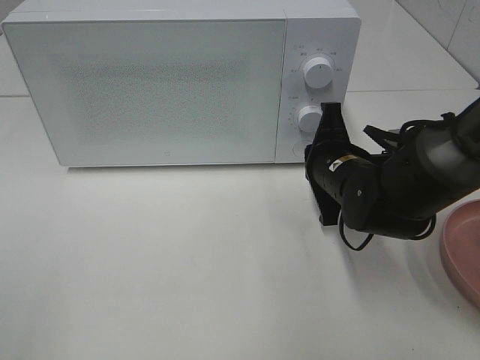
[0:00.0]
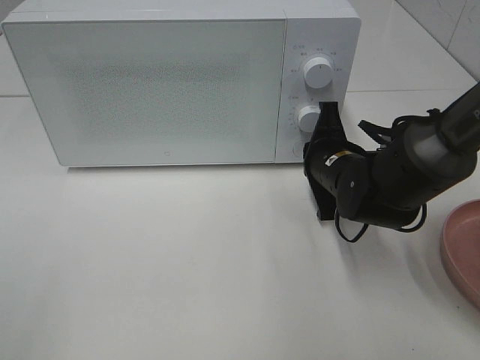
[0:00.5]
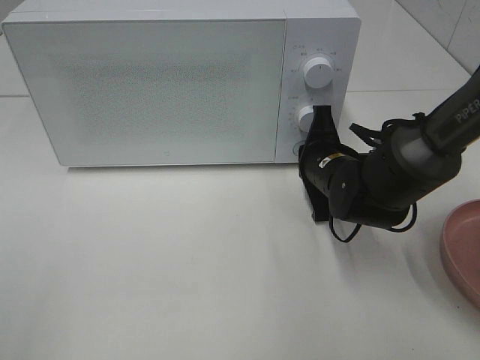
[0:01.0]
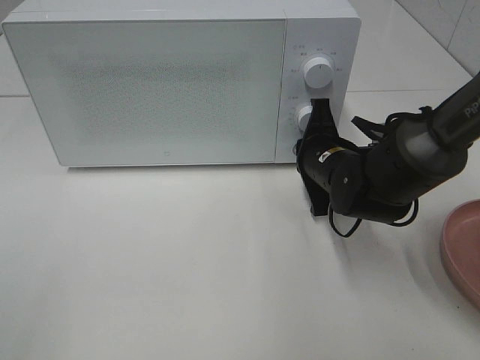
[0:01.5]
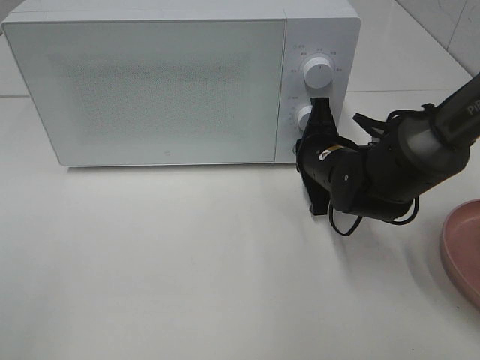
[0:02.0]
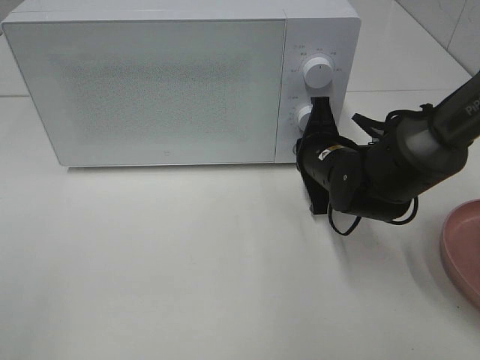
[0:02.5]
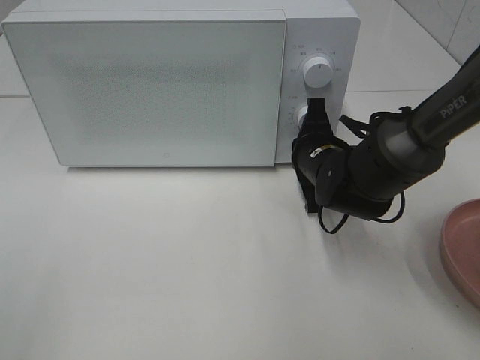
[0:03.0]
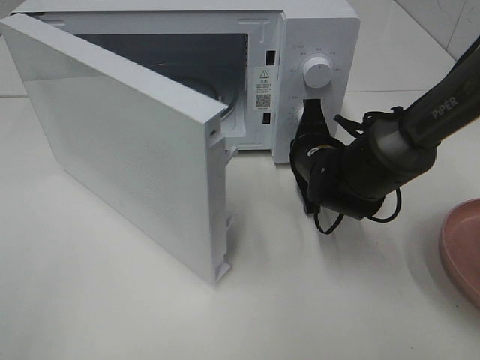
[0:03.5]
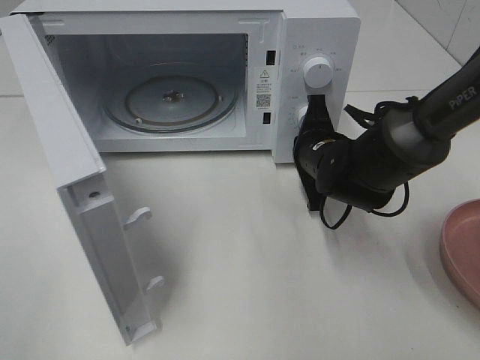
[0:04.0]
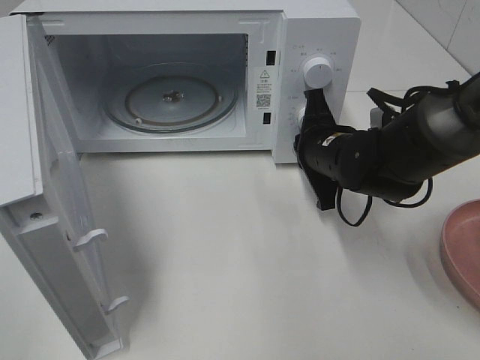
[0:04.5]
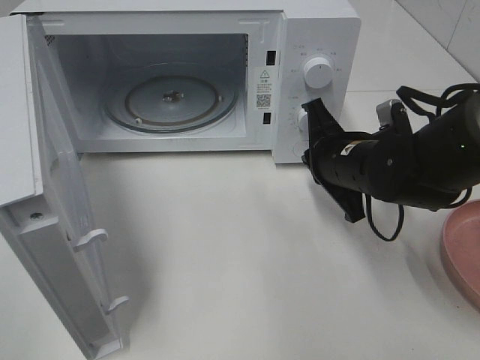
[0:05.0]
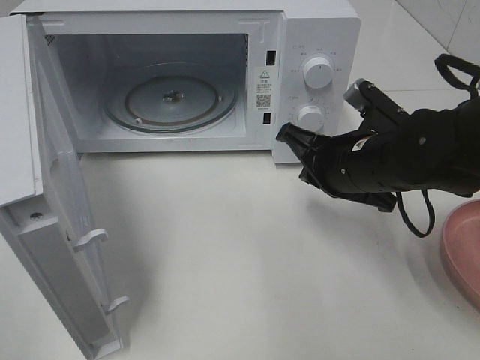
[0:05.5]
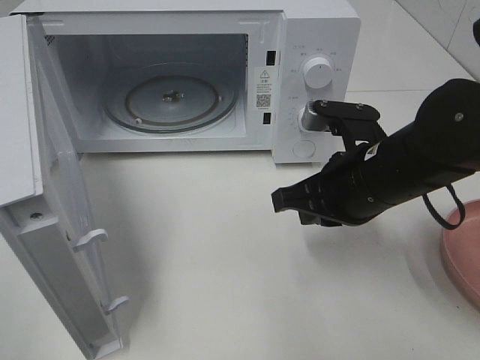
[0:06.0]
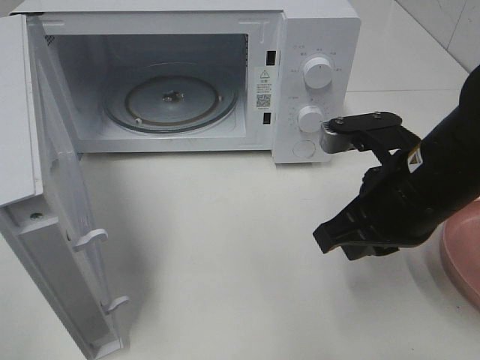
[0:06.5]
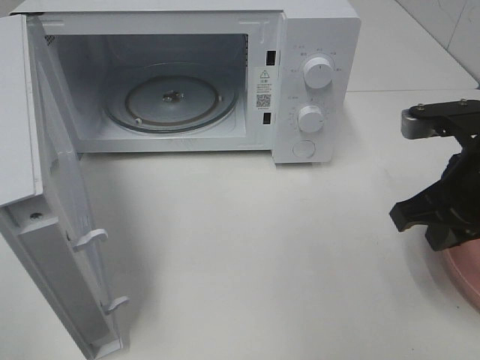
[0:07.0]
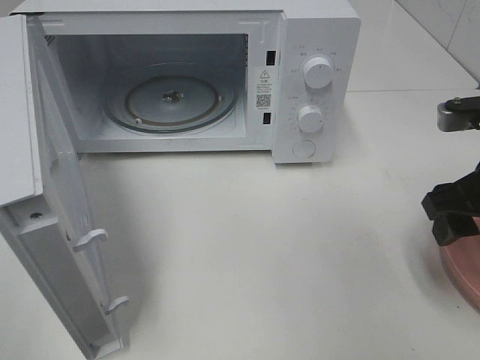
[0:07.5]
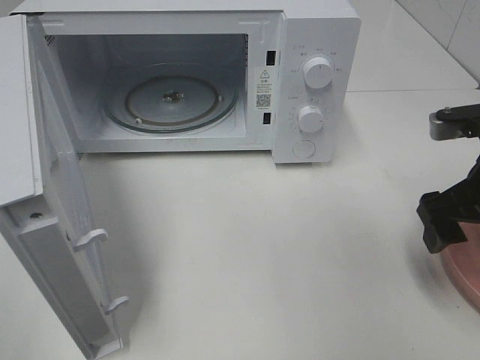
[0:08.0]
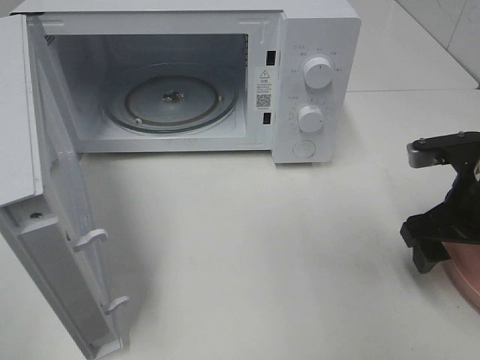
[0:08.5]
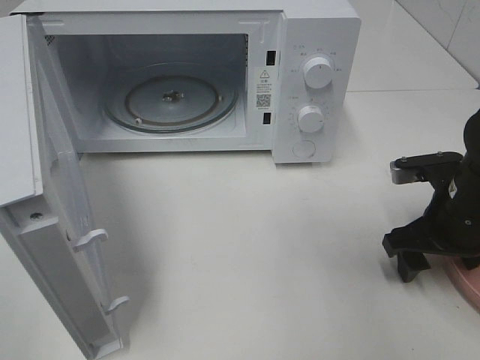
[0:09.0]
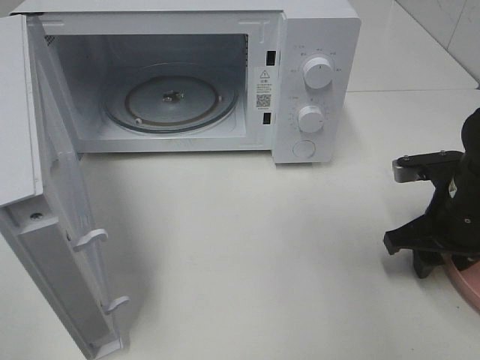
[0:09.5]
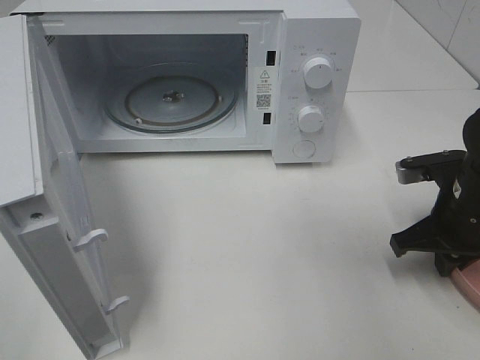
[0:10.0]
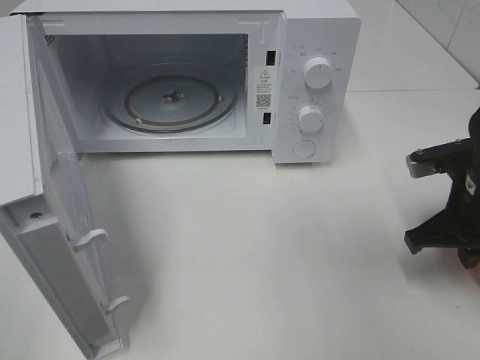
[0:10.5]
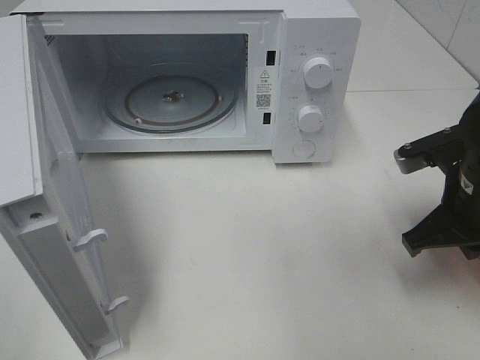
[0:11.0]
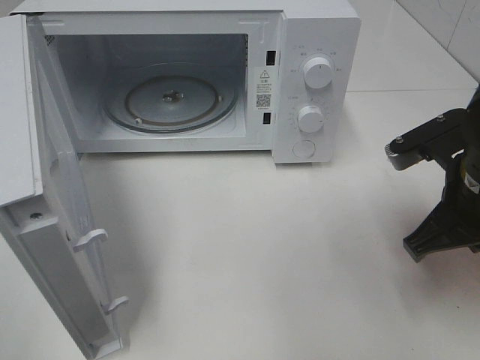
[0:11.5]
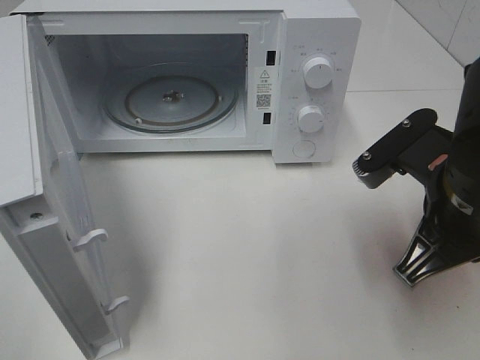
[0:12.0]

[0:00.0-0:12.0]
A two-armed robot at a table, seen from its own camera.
Task of the whole recording: Heat the burger.
Step, 0.0 to 4.5 s: Right hand: press the switch.
Step, 5.0 to 10.0 s: Right hand: grab the plate with the hamburger.
0.0 to 2.0 s: The grippers move only a little.
4.0 to 6.0 s: The right gripper goes about 10 cm backward and upward.
6.0 to 8.0 s: The right gripper moves to the right, about 10 cm, and opens.
8.0 to 10.0 s: The right gripper is displaced downward by roughly 10 cm, and closes up.
10.0 to 12.0 s: The right gripper travels upward, to the left and backward by some 15 cm.

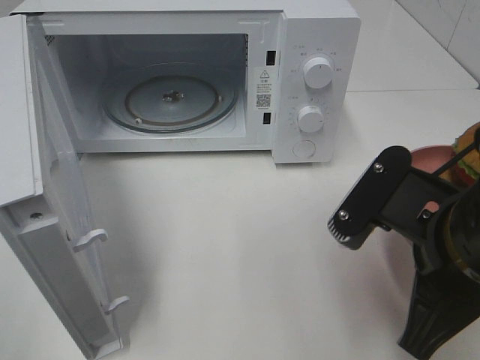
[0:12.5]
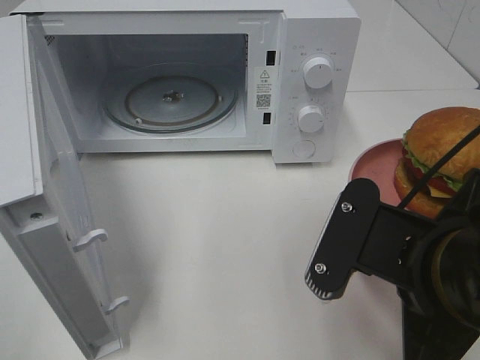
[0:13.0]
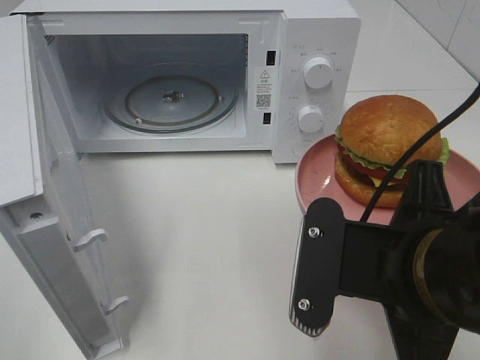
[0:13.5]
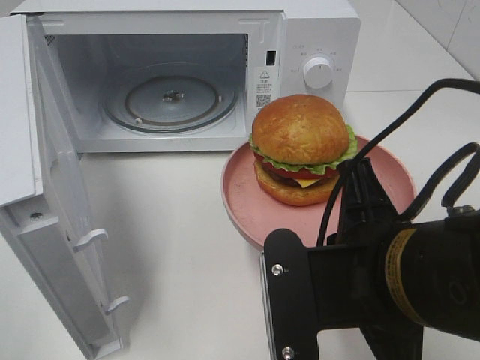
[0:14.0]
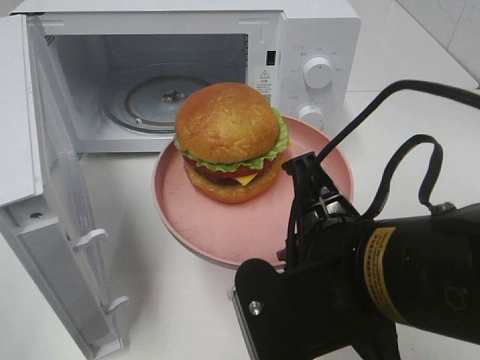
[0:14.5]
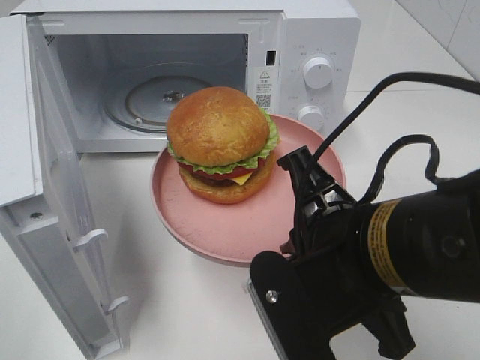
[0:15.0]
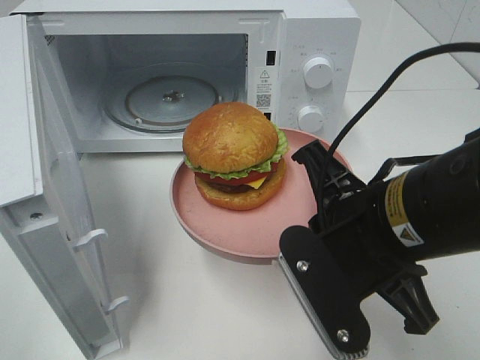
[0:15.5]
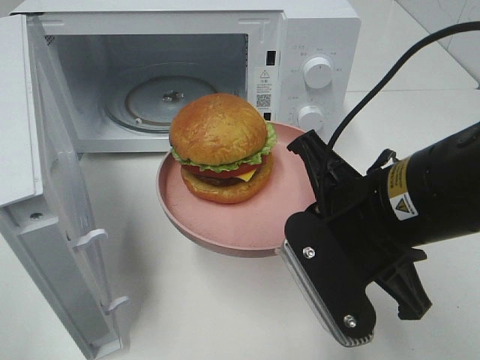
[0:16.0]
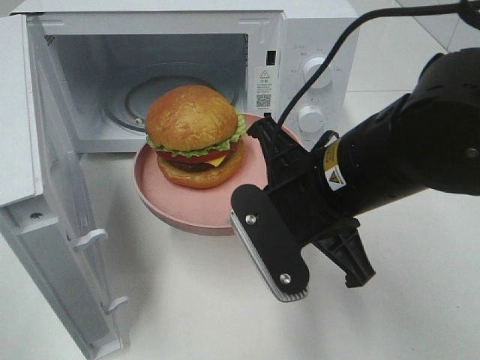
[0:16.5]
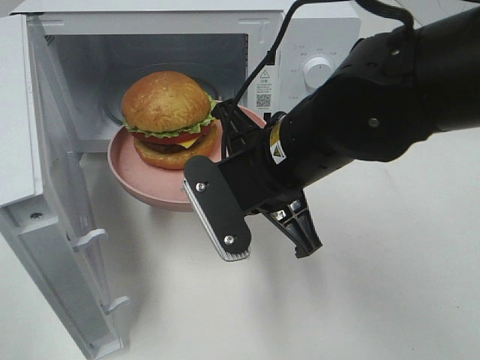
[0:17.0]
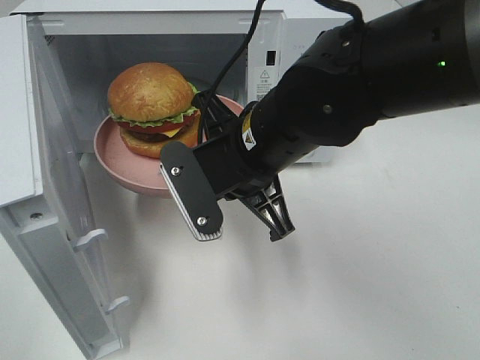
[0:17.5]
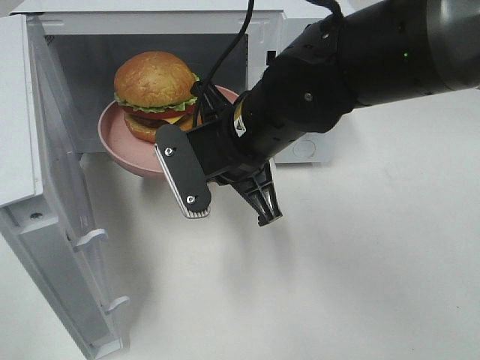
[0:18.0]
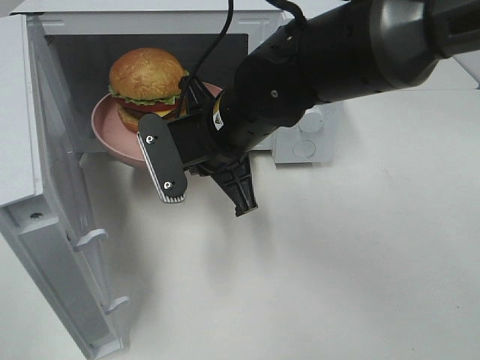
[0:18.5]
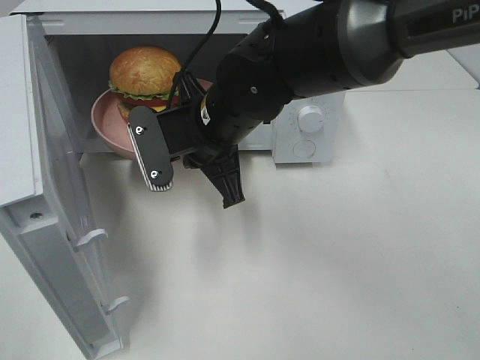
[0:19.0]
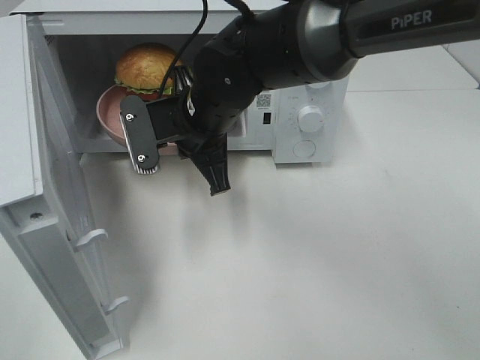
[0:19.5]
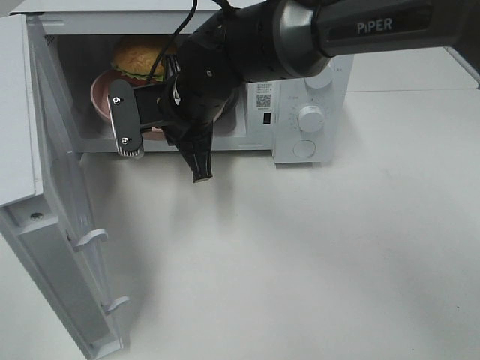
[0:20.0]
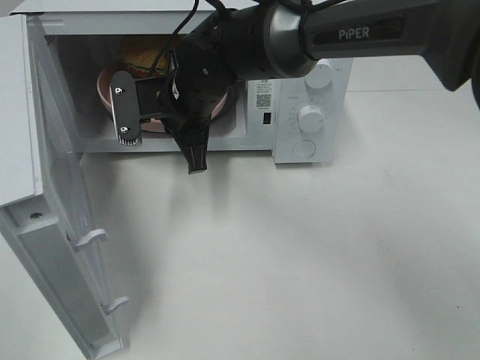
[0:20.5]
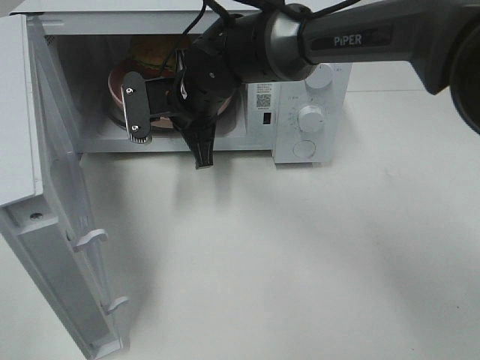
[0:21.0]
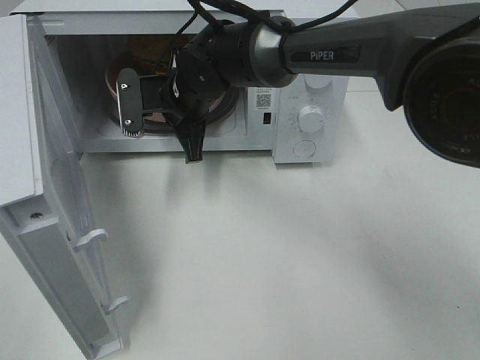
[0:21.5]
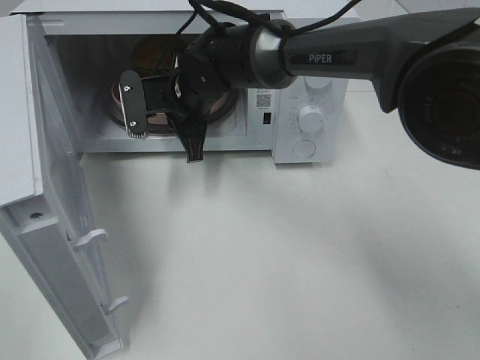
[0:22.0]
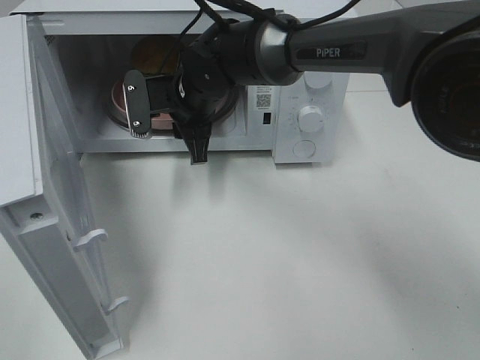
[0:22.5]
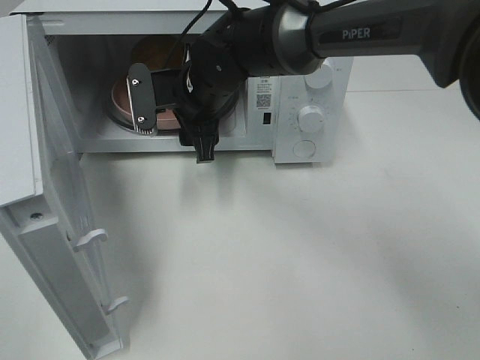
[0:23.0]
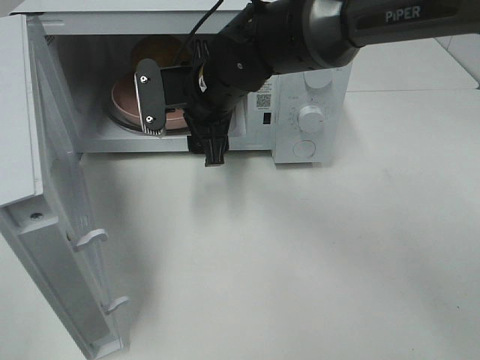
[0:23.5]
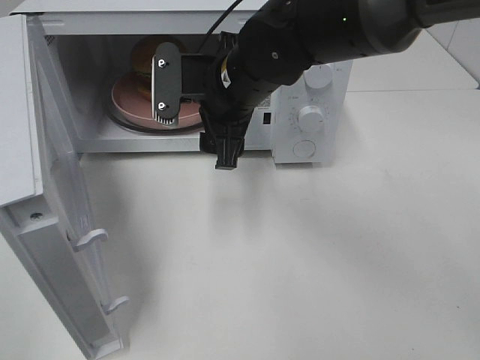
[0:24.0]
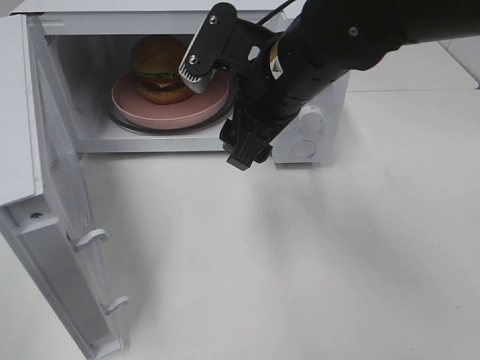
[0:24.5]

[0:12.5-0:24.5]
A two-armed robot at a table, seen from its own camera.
Task of the whole recording: Heat the burger.
Step, 12.5 to 22.0 s: Right hand: place the plate in the microwave.
12.5 to 14.5 s: The right gripper goes approximately 5 cm to the left.
14.5 to 16.5 s: The right gripper goes some 10 cm forward.
16.5 to 18.5 s: The right gripper travels forward and to the left by approximately 10 cm.
18.5 to 20.5 s: The right gripper shifts some 10 cm forward.
20.5 to 22.5 s: The right gripper opens its fingers.
22.5 to 24.5 s: The right gripper goes some 15 cm backward, to the right and upward, and opens up.

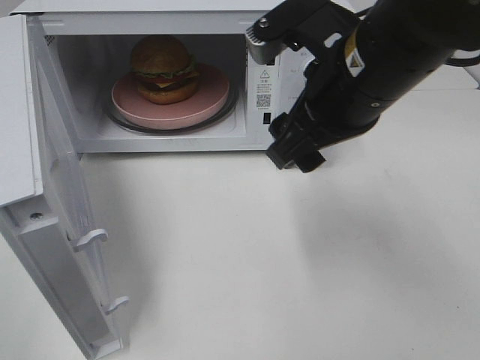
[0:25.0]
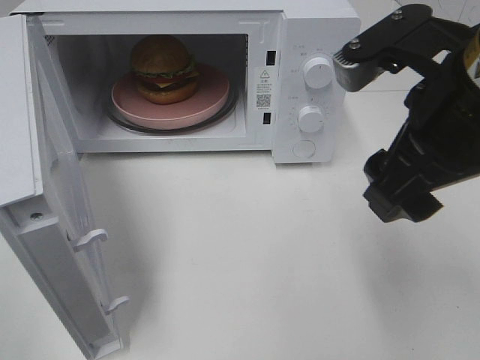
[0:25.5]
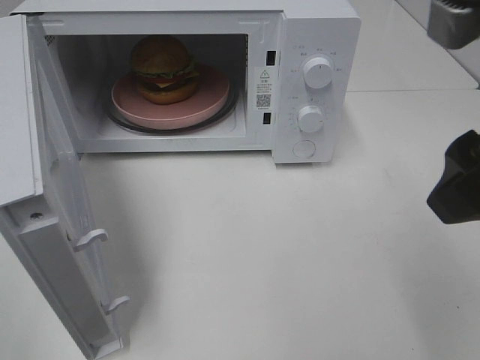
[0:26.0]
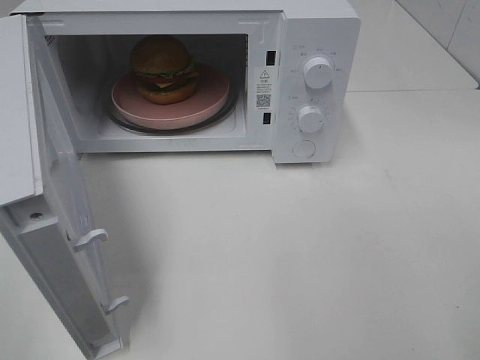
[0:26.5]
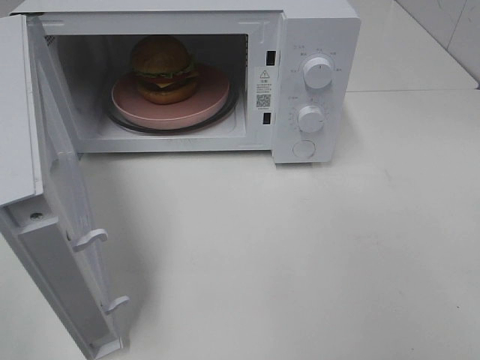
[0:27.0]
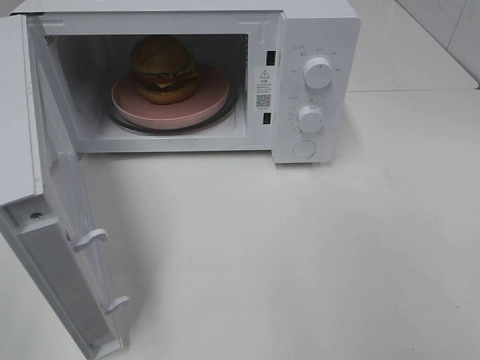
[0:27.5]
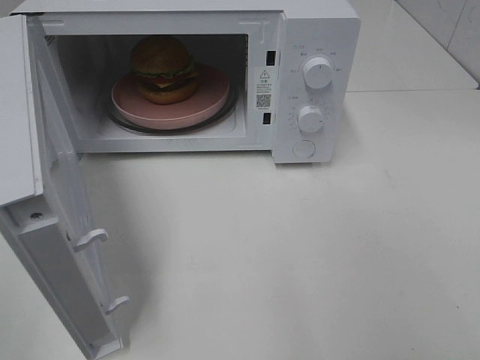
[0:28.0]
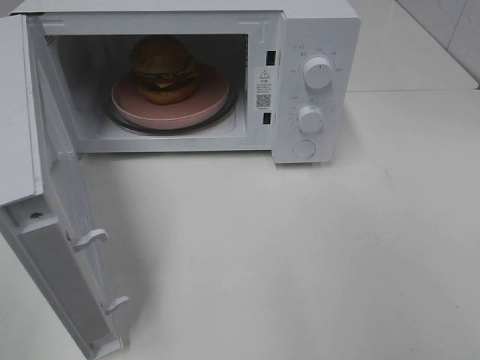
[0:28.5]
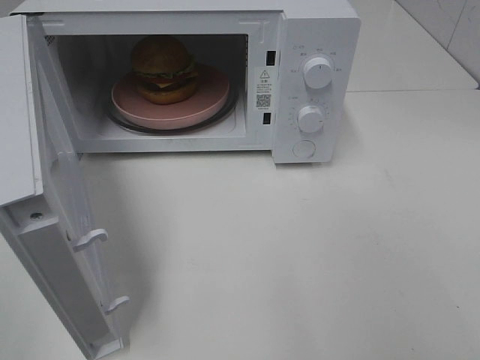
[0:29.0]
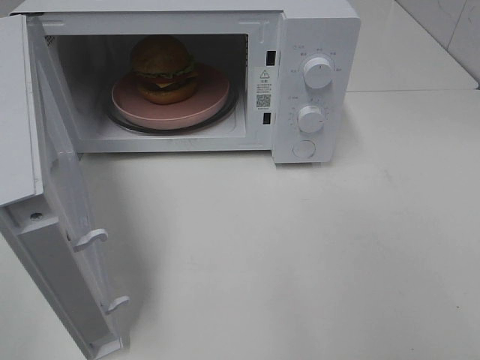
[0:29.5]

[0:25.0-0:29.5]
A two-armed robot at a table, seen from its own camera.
Task of the whole recording: Heat the burger.
25.0 to 27.0 s: The right gripper shifts about 25 cm backward and to the right.
